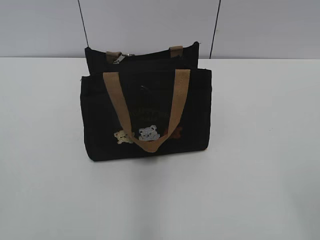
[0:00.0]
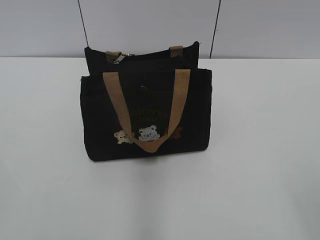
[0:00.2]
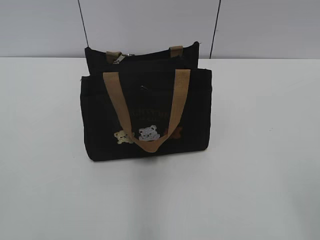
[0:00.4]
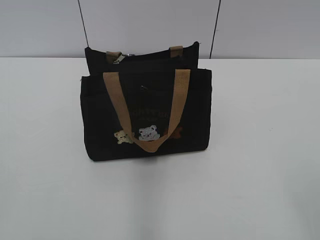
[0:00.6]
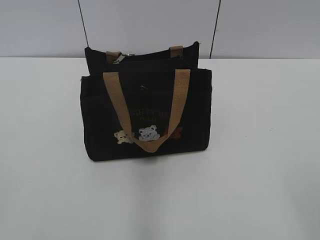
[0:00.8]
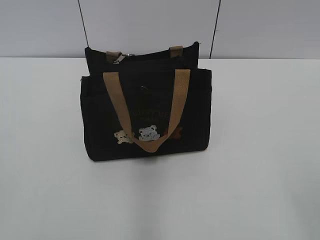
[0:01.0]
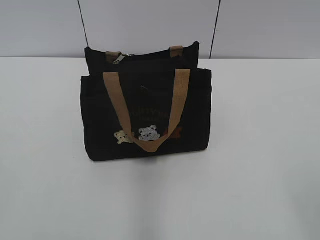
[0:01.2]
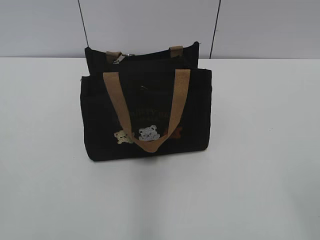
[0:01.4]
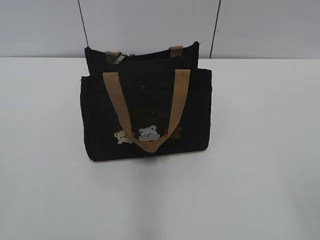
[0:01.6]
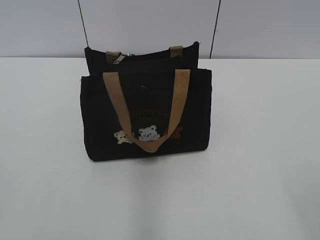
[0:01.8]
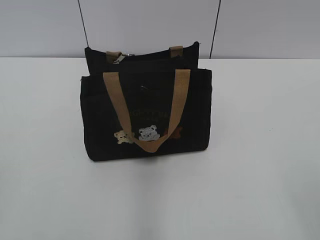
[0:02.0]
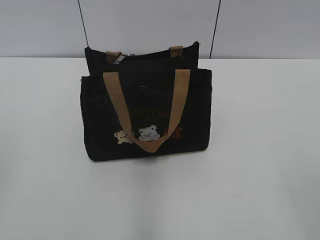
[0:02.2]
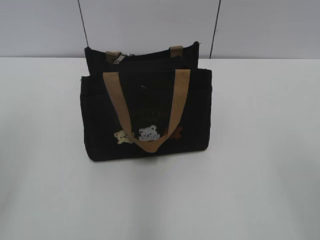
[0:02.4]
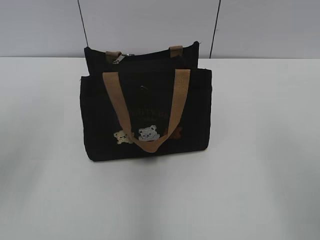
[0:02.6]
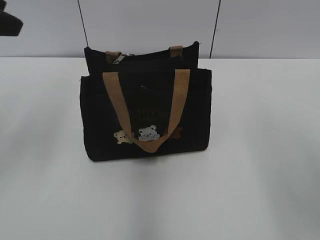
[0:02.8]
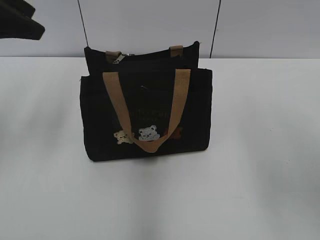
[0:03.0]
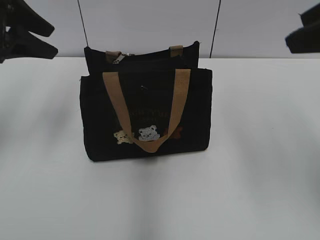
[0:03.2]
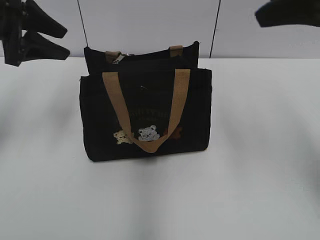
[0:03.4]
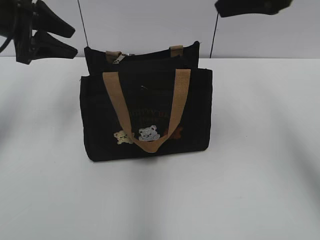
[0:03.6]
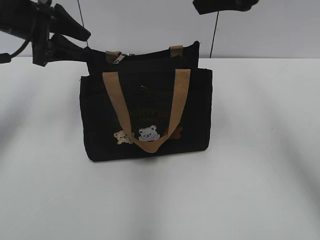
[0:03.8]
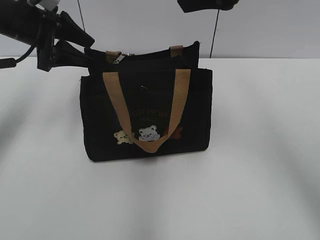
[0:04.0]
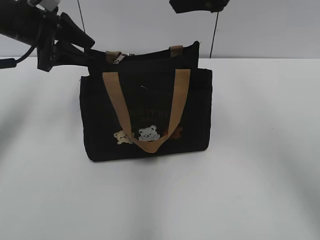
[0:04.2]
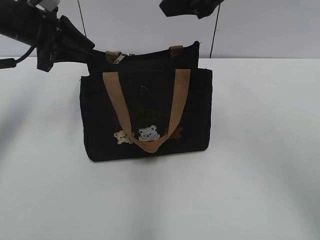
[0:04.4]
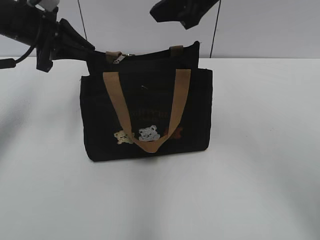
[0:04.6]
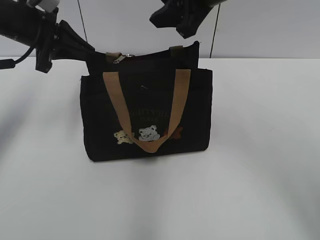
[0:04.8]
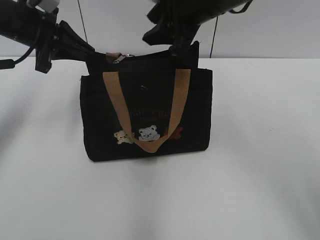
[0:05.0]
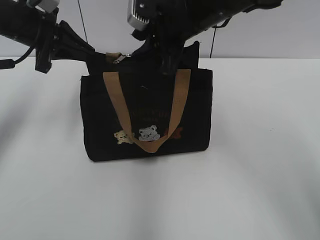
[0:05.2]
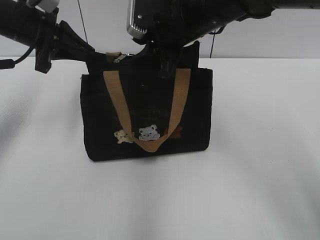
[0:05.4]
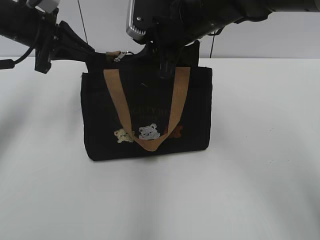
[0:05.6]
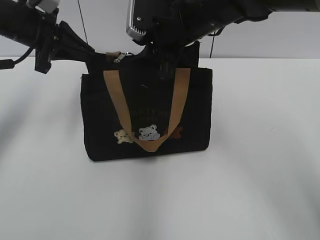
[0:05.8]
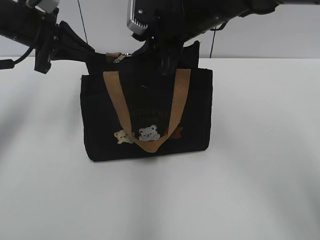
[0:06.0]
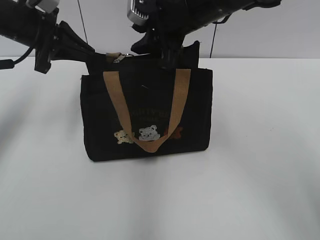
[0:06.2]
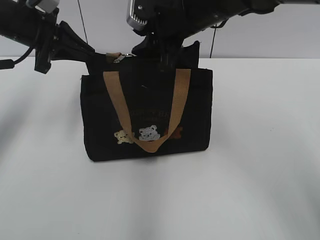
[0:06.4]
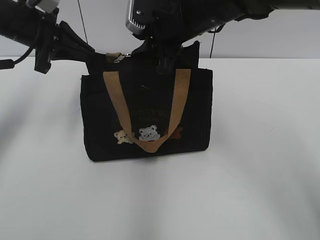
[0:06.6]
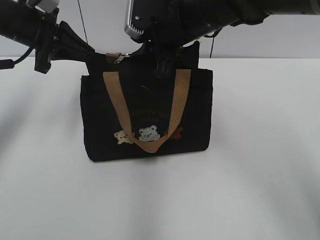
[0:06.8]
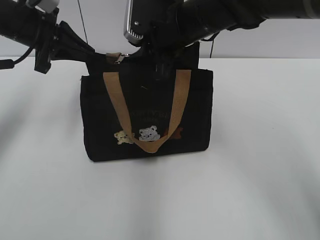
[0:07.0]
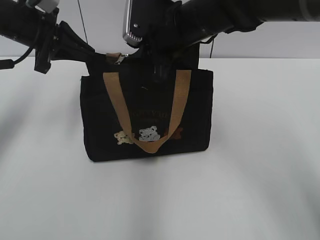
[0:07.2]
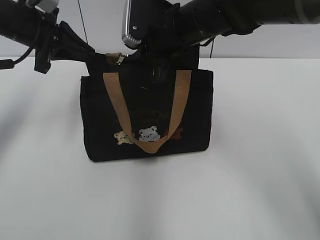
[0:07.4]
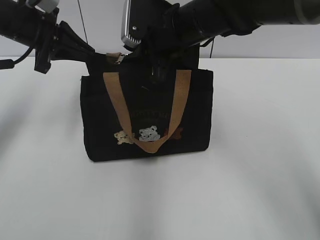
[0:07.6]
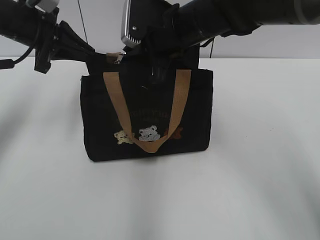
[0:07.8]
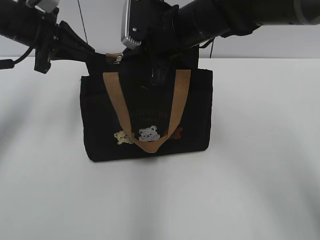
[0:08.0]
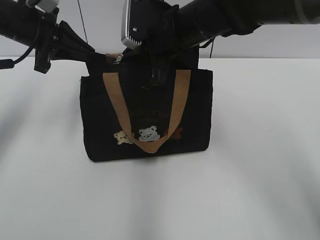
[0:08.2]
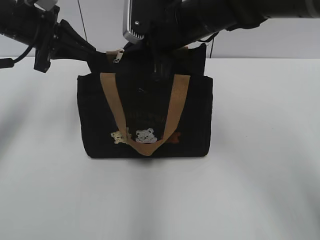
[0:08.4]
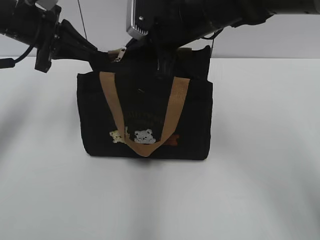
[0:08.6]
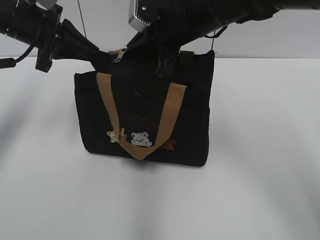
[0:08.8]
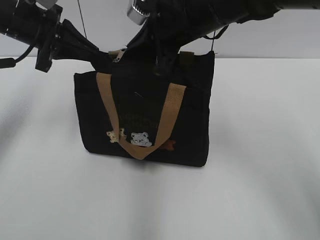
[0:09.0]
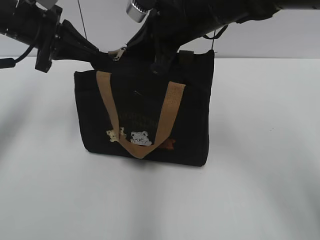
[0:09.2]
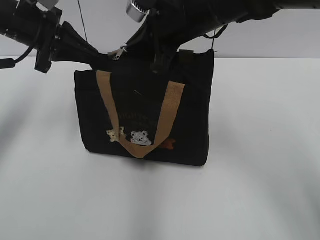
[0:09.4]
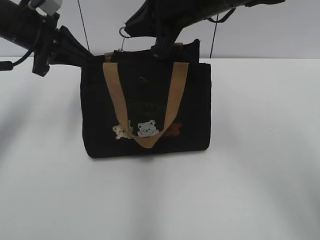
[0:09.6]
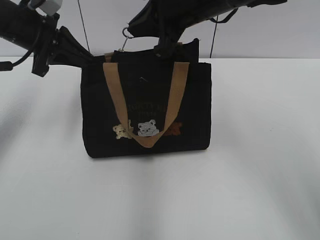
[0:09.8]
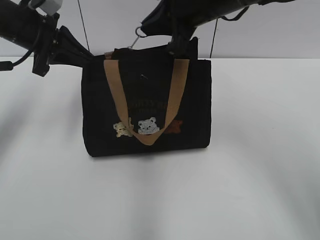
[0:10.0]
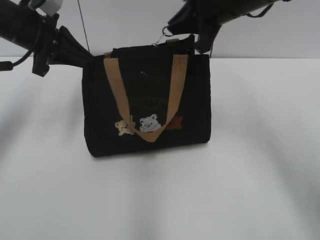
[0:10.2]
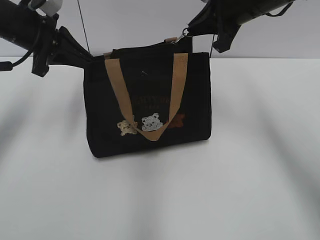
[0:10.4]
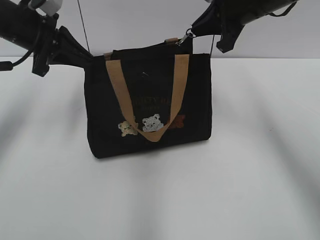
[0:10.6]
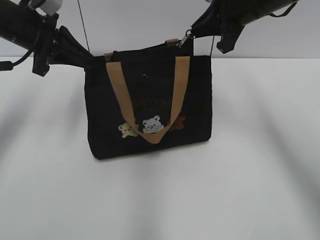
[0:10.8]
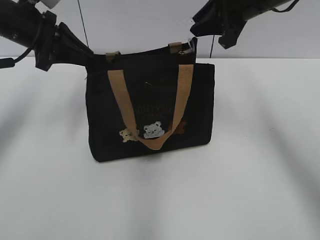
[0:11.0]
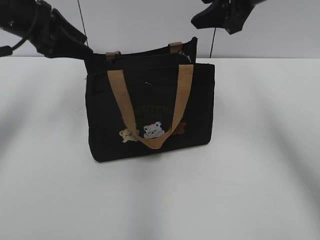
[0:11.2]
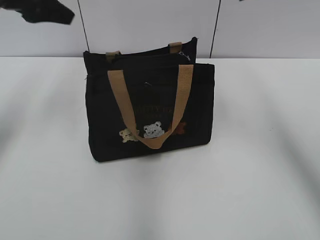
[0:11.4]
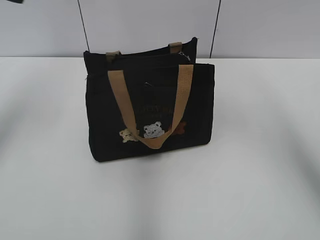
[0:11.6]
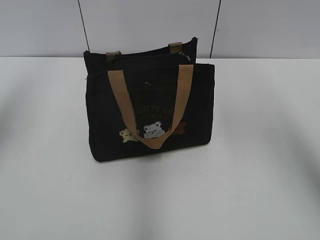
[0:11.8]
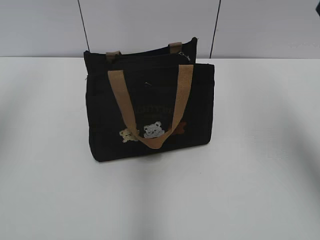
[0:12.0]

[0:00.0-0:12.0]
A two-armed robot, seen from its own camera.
Step, 0:00.0 to 0:10.8: Zip up the bag with your right hand.
0:01.6 to 0:03.0: The left gripper moves forward, about 30 cm, and opens its fingers; the right gripper goes about 20 cm forward and upward.
0:03.0 to 0:04.4: The left gripper shifts roughly 15 cm downward and forward, and closes, while the right gripper travels forward and to the left by roughly 20 cm.
0:04.4 to 0:06.0: The left gripper closes up; the right gripper moves downward and to the left, about 10 cm.
0:06.0 to 0:07.6: There are only small adjustments of the grippers.
0:07.6 to 0:09.0: The right gripper closes its fingers.
0:09.0 to 0:10.4: The right gripper moves to the right, about 10 cm.
0:10.4 to 0:12.0: The right gripper heads backward, upward and to the right, covering roughly 20 cm, and opens; the left gripper moves upward, backward and to the left, about 25 cm, and opens up.

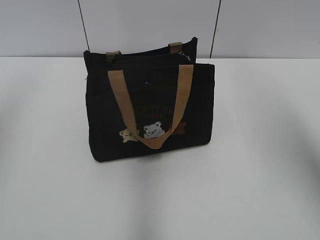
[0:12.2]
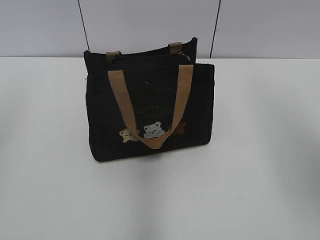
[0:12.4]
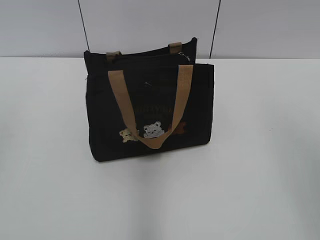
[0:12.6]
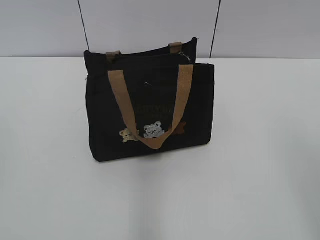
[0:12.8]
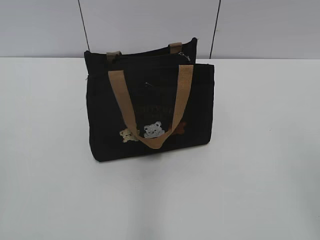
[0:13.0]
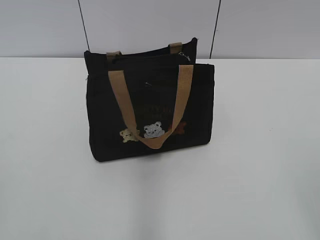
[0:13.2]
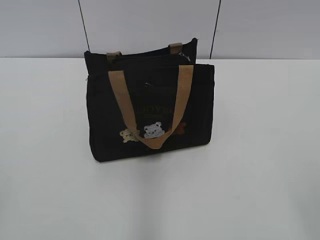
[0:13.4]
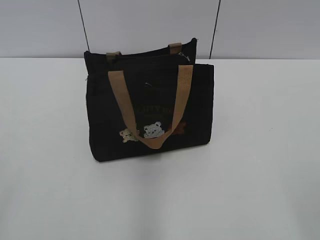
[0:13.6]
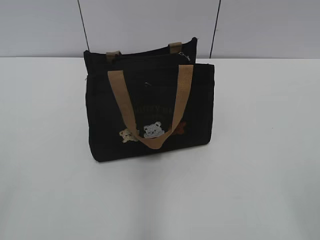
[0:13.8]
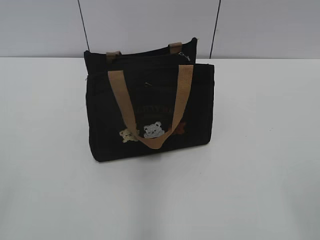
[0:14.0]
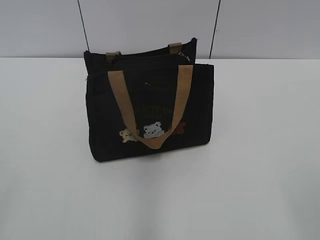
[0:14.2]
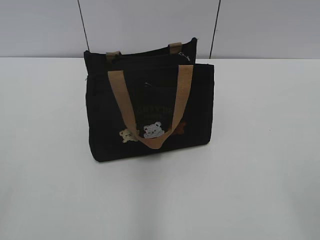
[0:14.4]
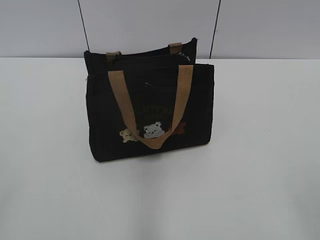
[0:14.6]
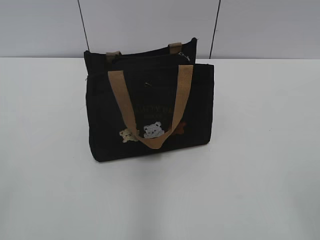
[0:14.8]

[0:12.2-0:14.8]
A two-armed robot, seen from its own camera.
0:12.2 to 0:13.4: The two grippers go about 25 cm backward and downward.

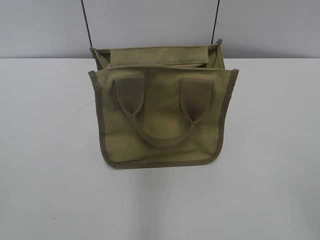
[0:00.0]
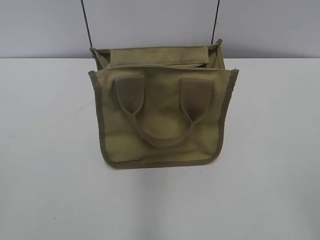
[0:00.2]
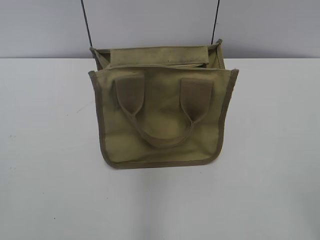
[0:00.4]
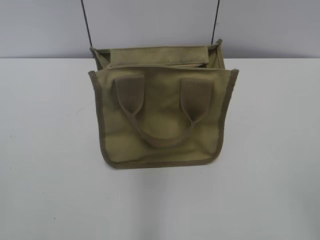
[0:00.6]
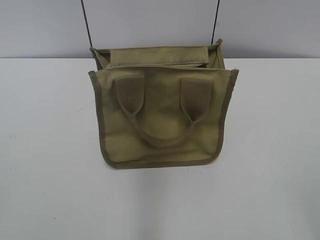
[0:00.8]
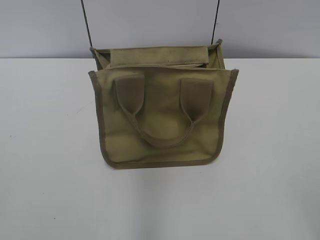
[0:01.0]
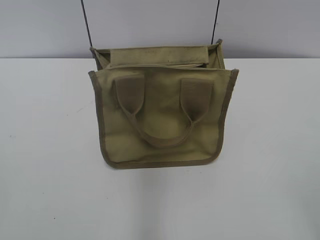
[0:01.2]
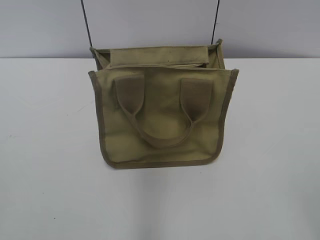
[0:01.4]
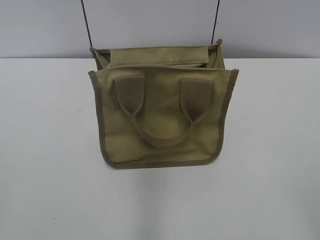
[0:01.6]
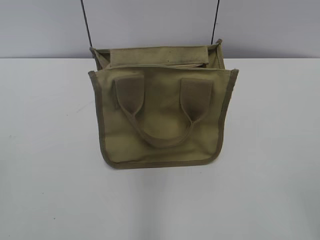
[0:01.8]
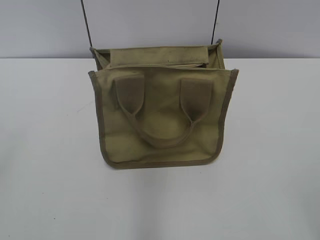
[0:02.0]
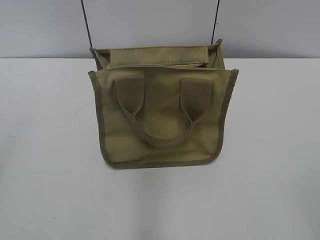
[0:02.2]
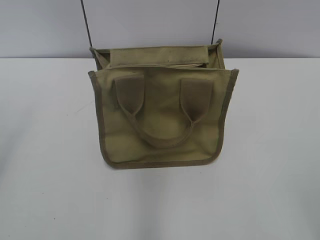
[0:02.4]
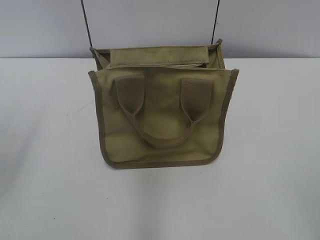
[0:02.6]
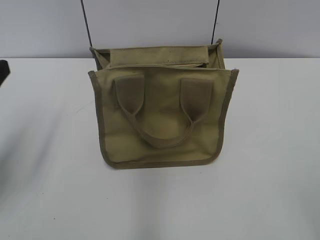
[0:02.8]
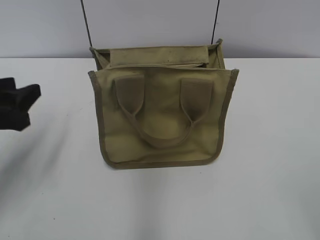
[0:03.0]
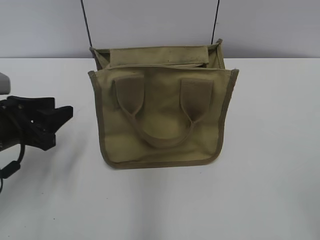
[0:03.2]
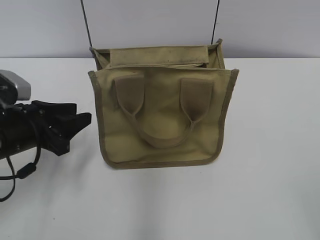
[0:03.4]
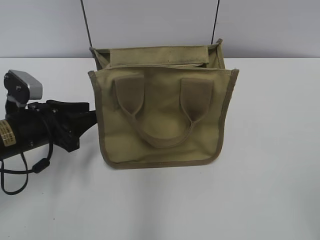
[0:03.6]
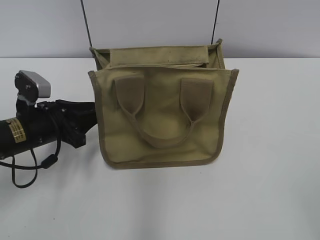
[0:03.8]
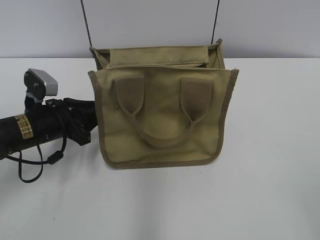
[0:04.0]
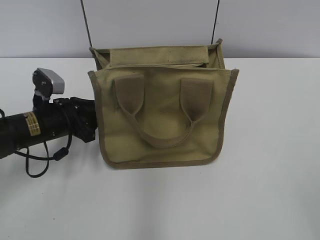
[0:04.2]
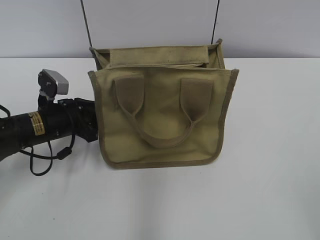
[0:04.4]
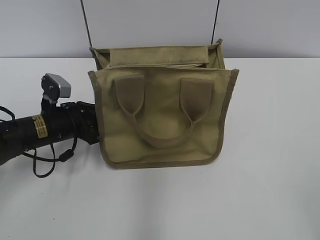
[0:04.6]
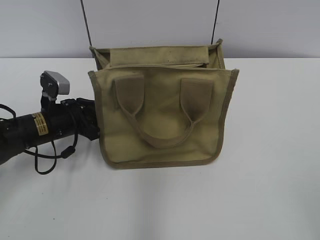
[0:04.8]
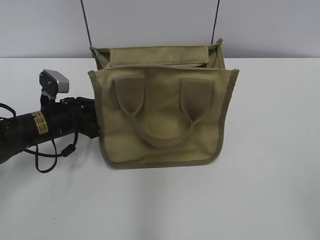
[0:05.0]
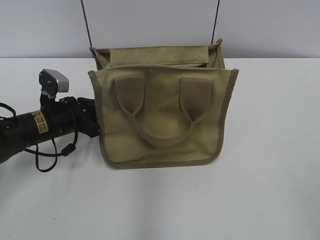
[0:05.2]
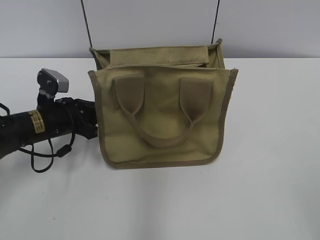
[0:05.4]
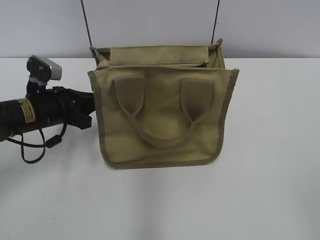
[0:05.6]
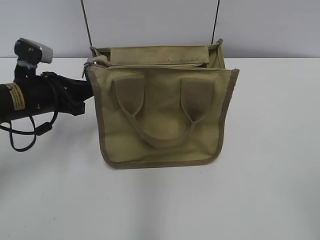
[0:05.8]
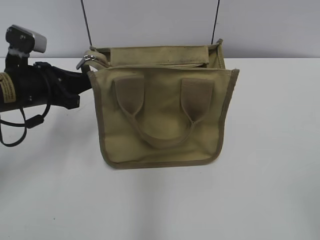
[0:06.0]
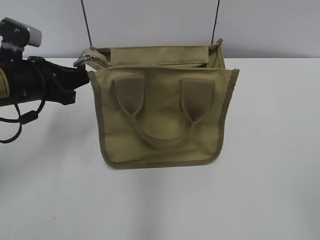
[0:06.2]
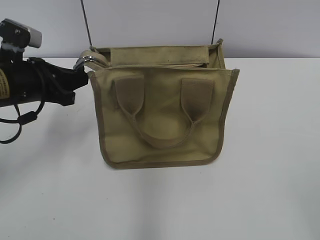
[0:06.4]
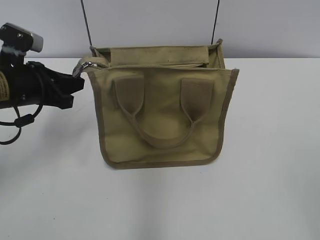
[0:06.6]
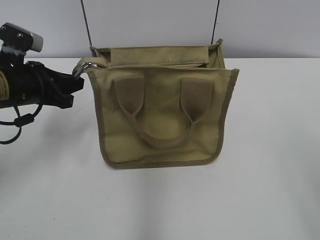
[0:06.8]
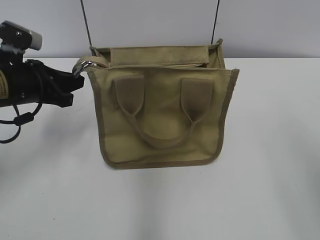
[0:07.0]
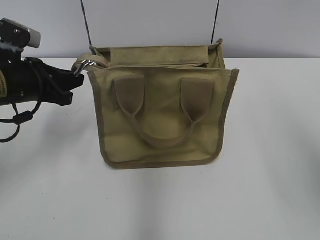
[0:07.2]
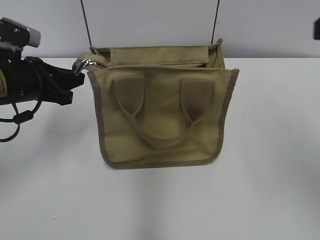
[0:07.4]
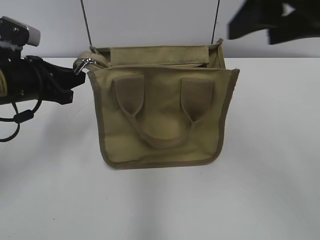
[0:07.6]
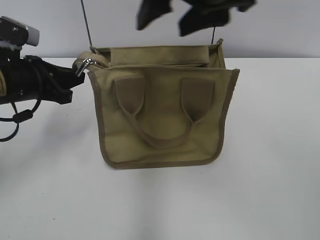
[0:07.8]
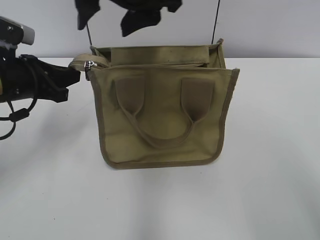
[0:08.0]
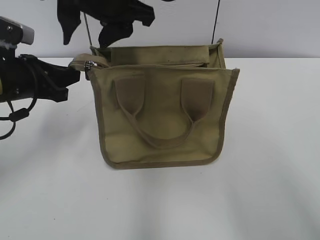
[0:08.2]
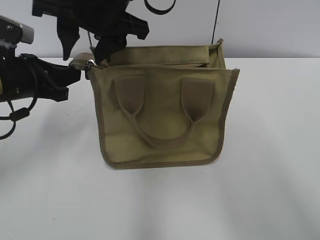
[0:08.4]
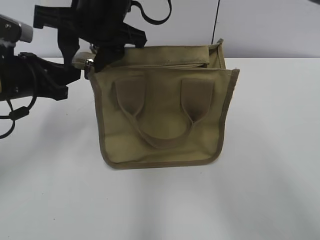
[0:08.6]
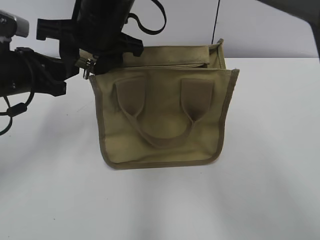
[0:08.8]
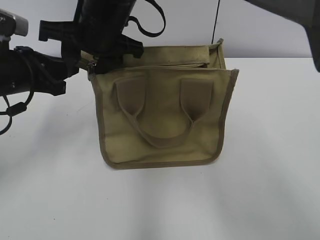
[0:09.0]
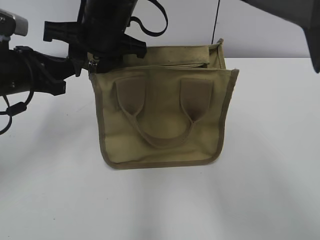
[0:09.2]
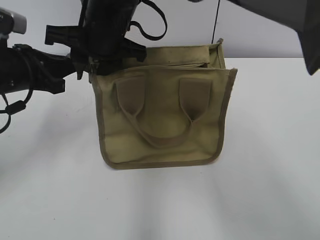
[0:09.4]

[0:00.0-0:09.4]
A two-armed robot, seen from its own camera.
0:01.6 to 0:03.2: The left gripper travels forward and downward by some 25 cm.
0:03.2 to 0:04.8: The left gripper heads forward and downward, covering approximately 10 cm.
0:04.8 to 0:06.2: The left gripper is displaced upward by approximately 10 cm, and closes.
0:06.2 to 0:07.8: The right gripper moves forward and to the left, some 35 cm.
0:07.8 to 0:09.4: The right gripper travels to the left, downward and forward by about 20 cm, and closes up.
